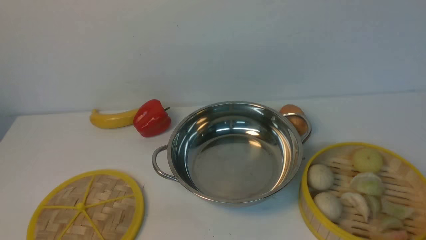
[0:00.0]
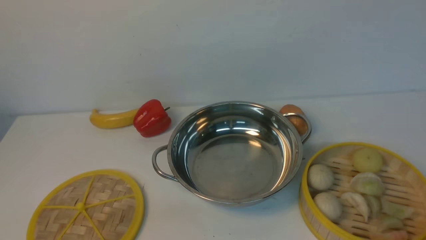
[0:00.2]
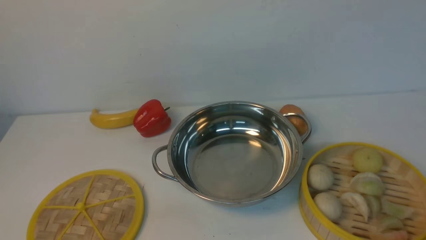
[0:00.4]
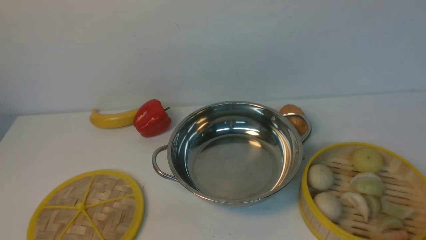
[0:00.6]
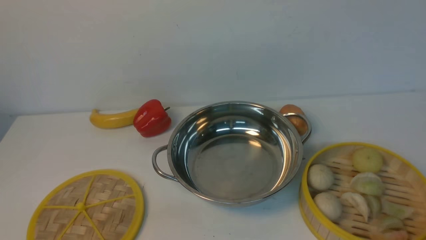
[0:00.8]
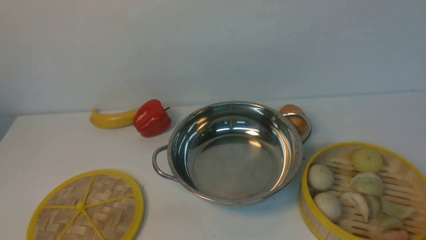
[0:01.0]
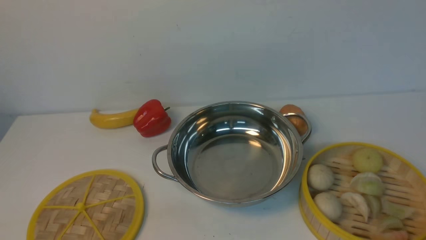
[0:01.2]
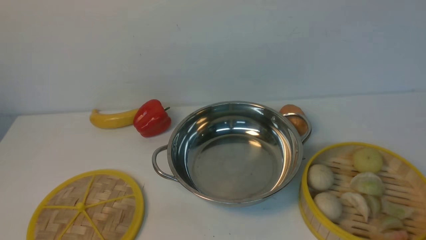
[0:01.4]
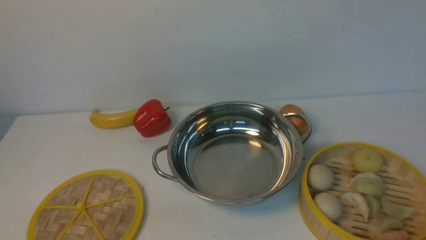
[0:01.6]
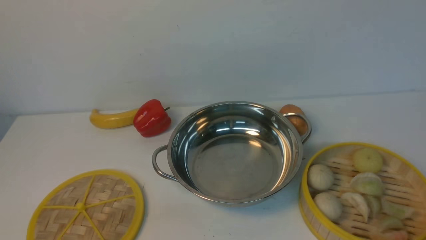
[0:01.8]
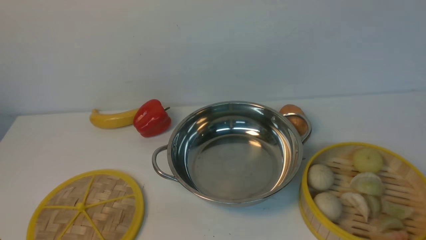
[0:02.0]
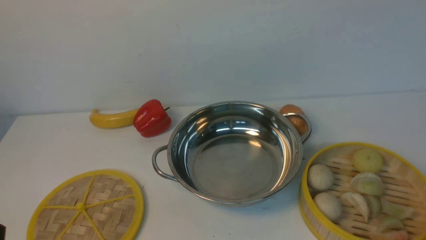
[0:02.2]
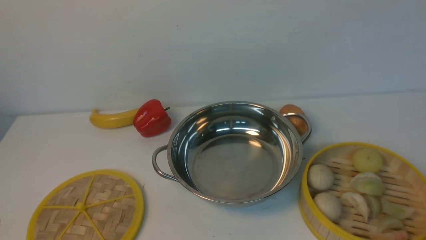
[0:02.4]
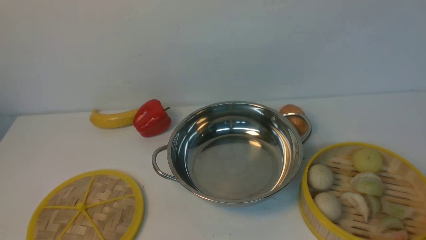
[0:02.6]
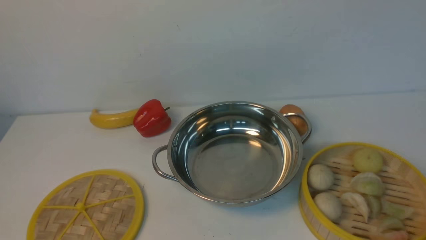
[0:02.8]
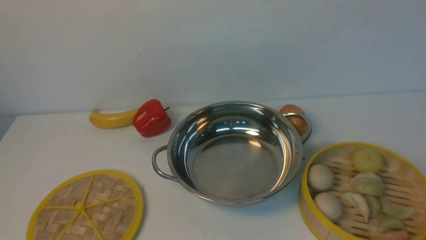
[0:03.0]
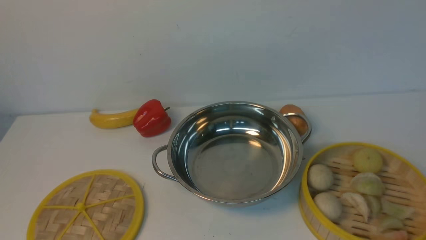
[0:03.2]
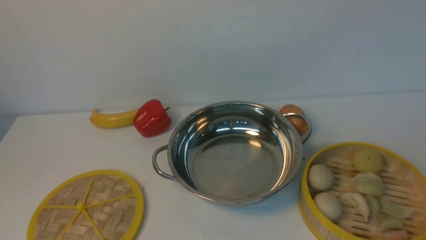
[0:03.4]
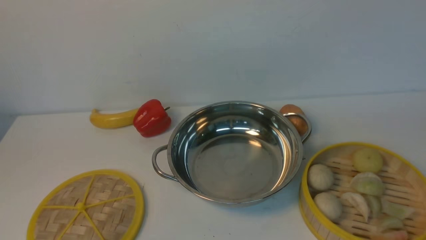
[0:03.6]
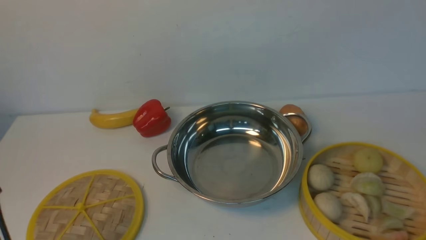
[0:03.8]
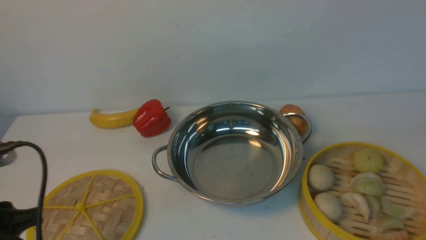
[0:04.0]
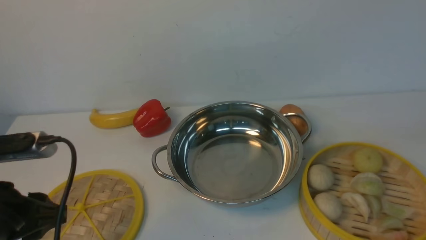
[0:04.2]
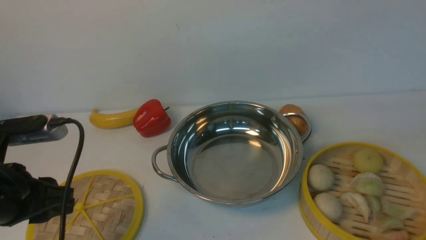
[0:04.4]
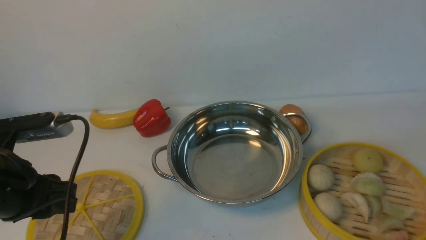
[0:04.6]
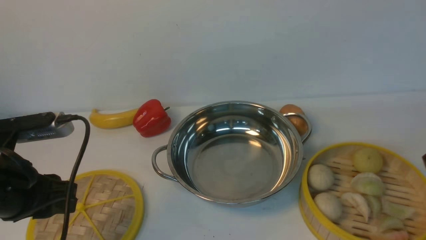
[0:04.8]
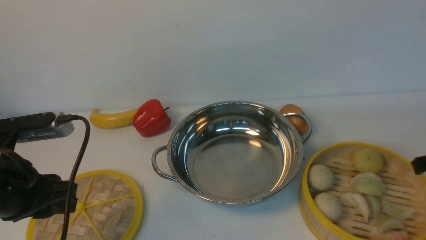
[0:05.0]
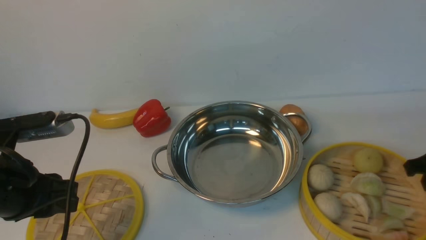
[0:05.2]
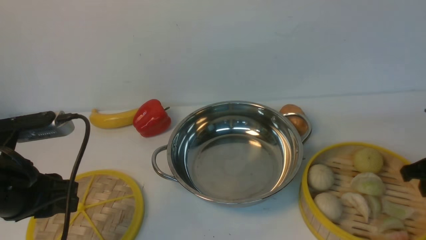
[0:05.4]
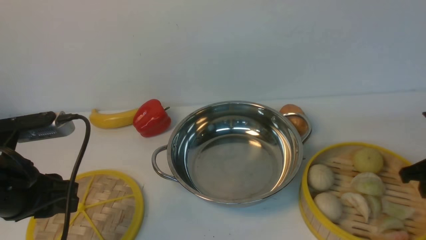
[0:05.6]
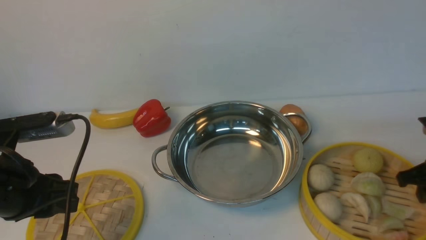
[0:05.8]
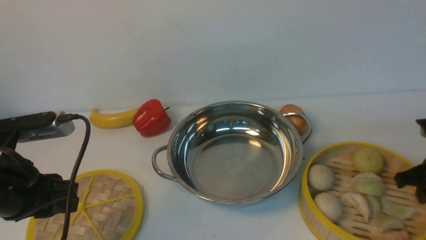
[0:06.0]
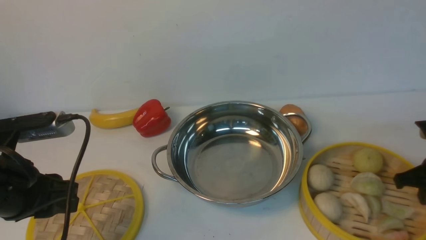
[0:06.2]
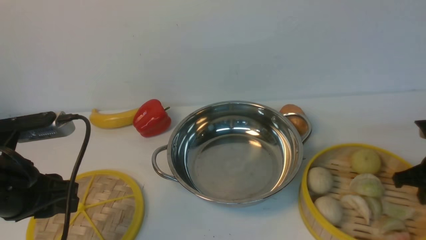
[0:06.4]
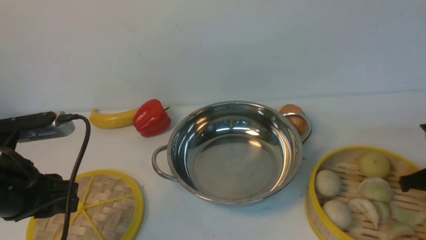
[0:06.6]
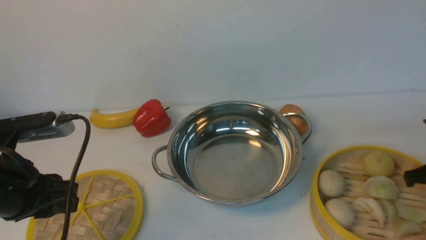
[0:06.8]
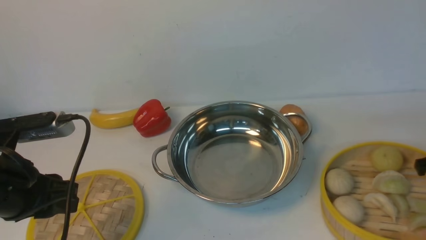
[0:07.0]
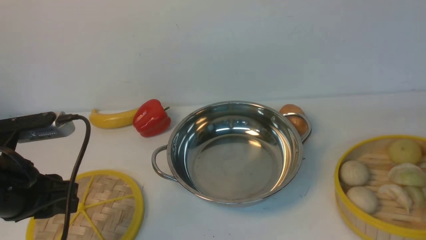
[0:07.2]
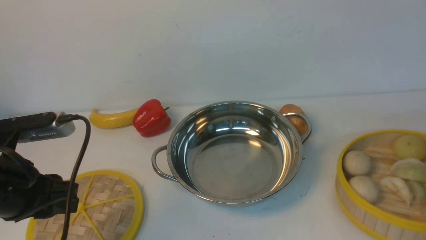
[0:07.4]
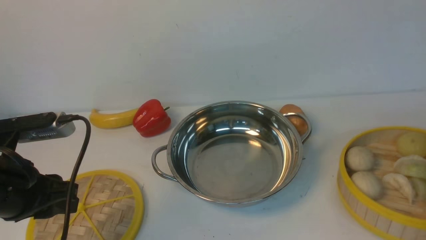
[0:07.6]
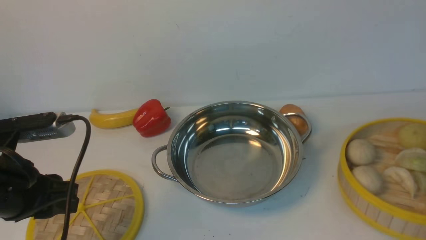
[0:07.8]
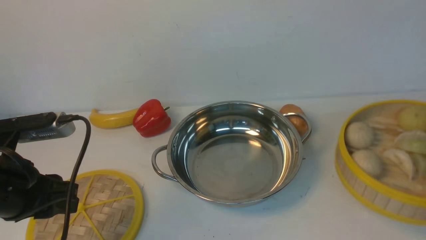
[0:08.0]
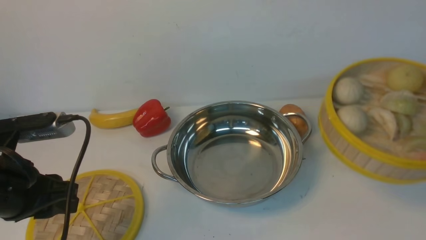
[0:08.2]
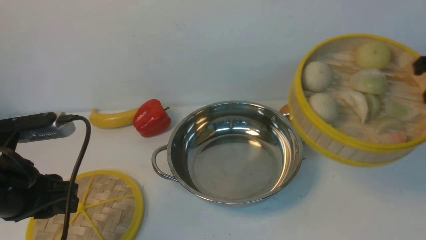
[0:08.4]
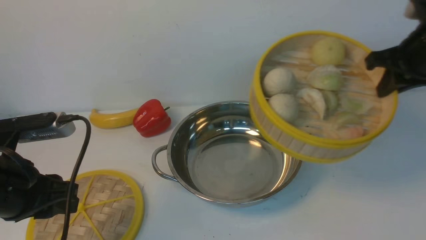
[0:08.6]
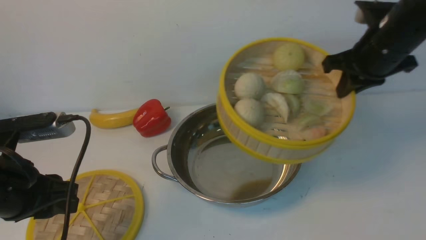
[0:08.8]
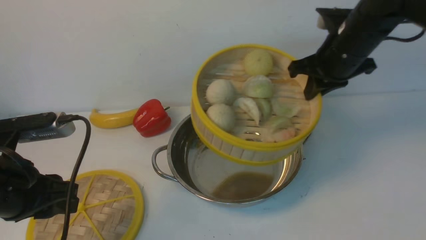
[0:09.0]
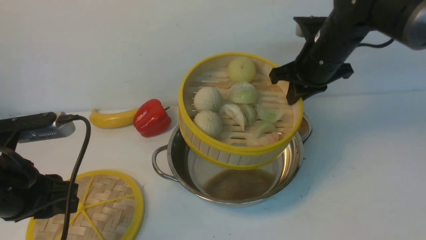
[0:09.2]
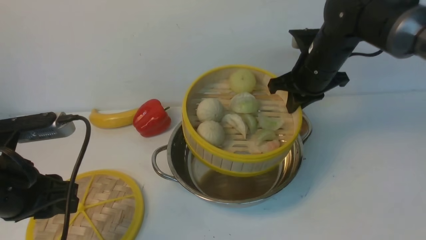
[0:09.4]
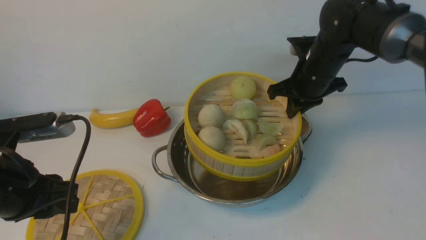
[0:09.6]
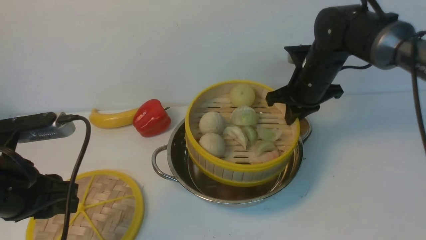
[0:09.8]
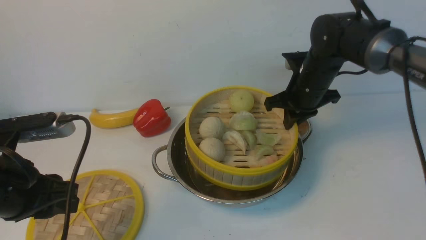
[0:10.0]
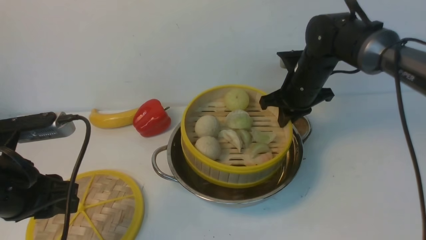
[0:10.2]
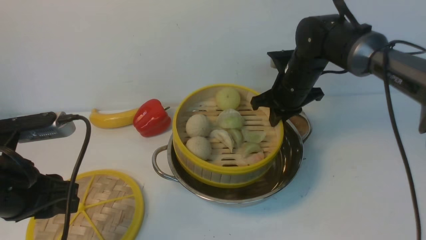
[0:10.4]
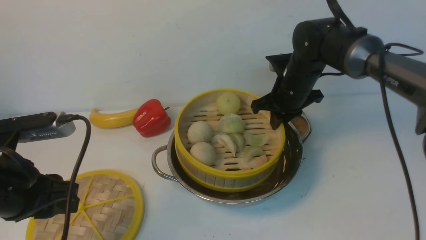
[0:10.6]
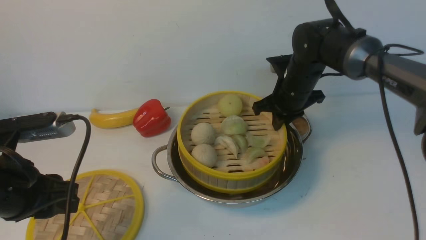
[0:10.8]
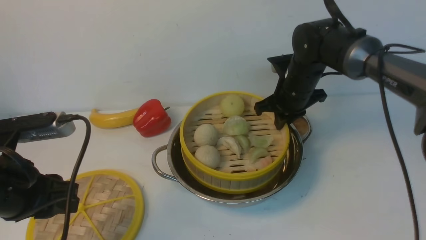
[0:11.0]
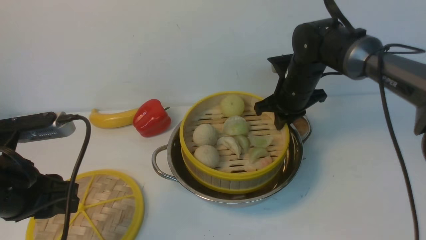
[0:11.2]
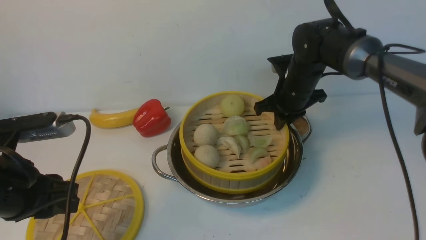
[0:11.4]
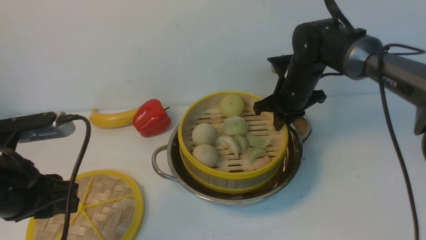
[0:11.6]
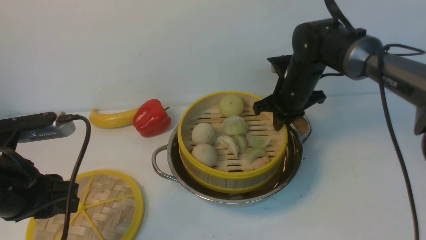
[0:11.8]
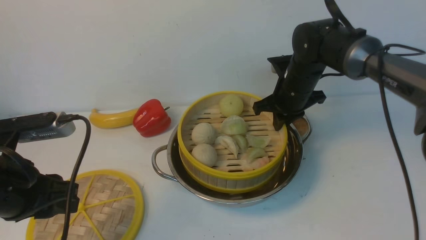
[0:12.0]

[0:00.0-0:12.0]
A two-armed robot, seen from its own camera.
Task of the whole recording: place the steamer in the pot on the white table, and put the lid on the steamer.
Step, 0:00.0 to 0:08.0: use the right arm to lift the steamer closest to it.
0:00.0 to 0:01.6: Both grippers stay put.
0:03.0 to 0:04.4: The left gripper is displaced forward by some 15 cm.
0:04.4 to 0:06.0: The right gripper moves downward and forward, some 15 cm.
0:06.0 to 0:07.6: The right gripper heads to the right and upward, covering approximately 10 cm, and closes its fingers.
0:07.6 to 0:09.0: The right gripper goes roughly 25 cm to the left and forward.
0:09.0 to 0:10.4: The right gripper shifts approximately 10 cm downward and to the left.
0:10.4 to 0:12.0: Neither gripper changes place.

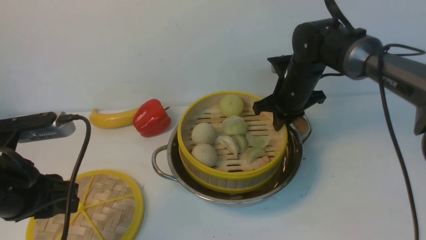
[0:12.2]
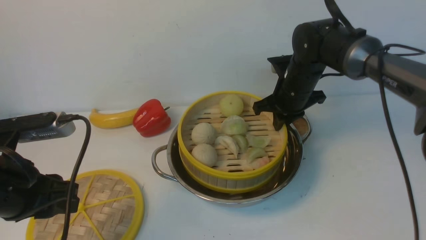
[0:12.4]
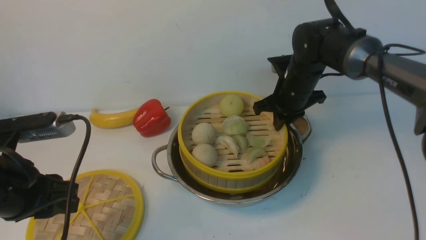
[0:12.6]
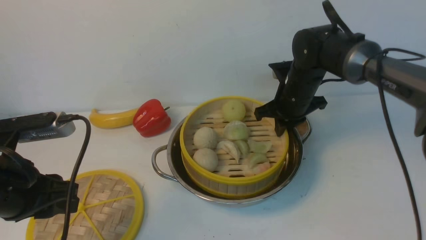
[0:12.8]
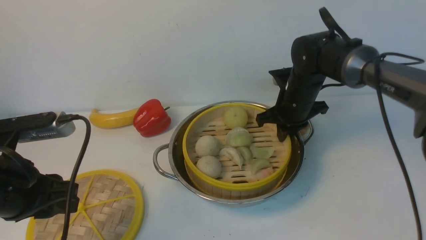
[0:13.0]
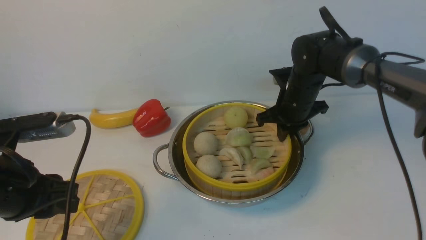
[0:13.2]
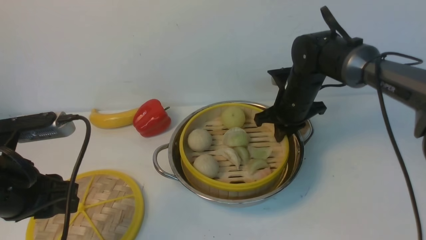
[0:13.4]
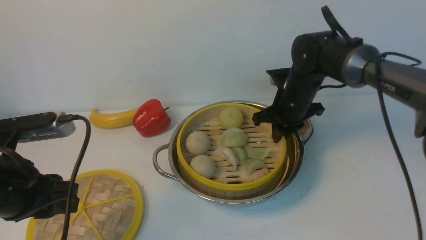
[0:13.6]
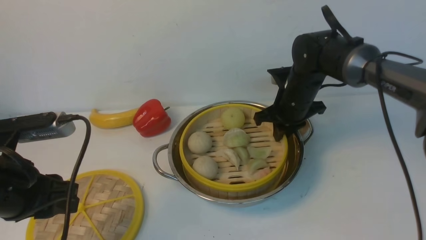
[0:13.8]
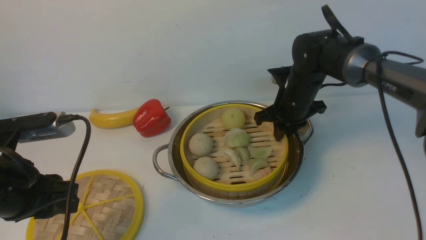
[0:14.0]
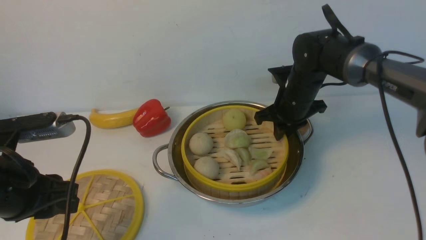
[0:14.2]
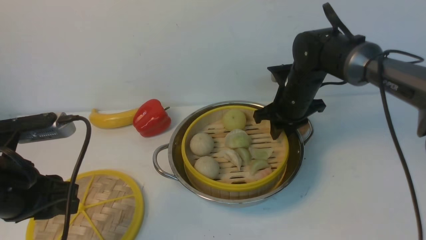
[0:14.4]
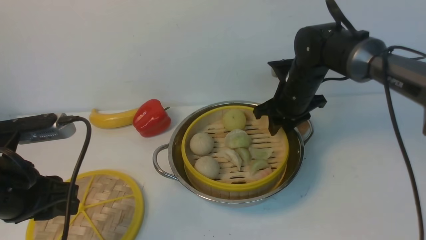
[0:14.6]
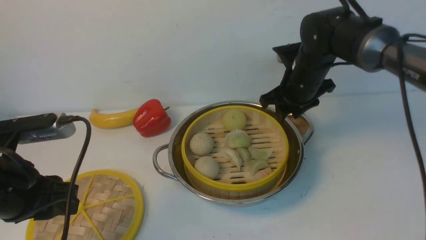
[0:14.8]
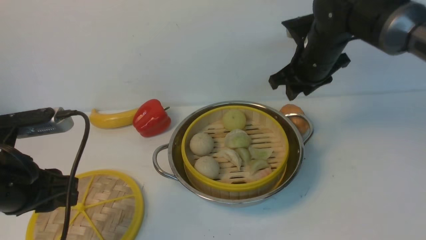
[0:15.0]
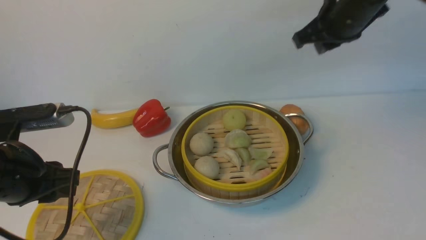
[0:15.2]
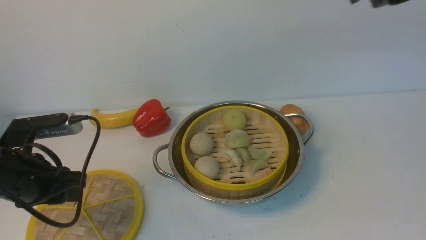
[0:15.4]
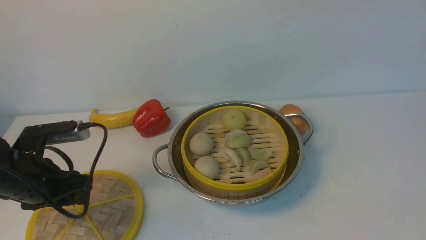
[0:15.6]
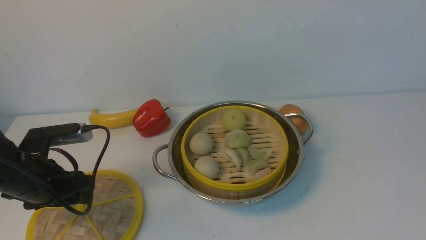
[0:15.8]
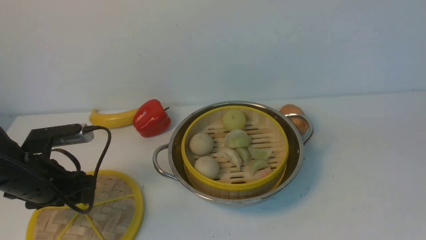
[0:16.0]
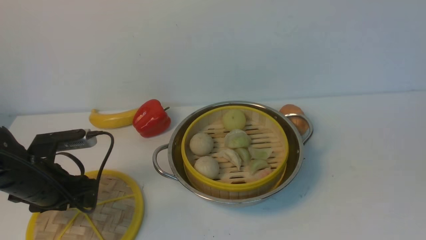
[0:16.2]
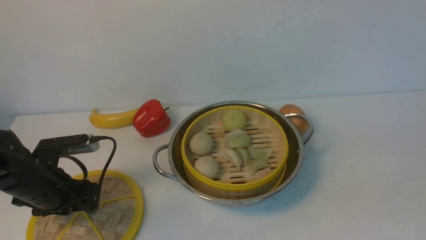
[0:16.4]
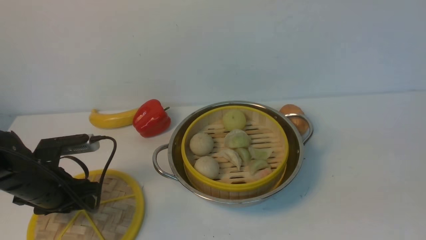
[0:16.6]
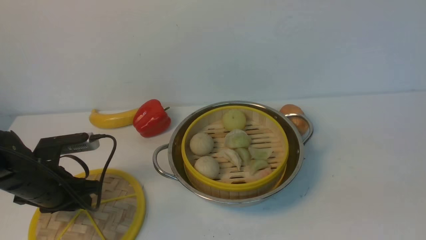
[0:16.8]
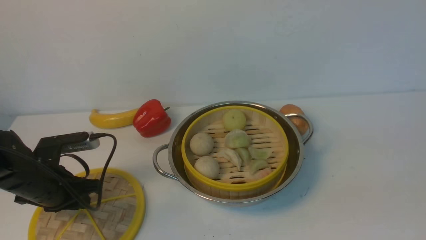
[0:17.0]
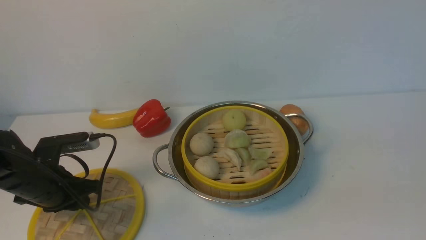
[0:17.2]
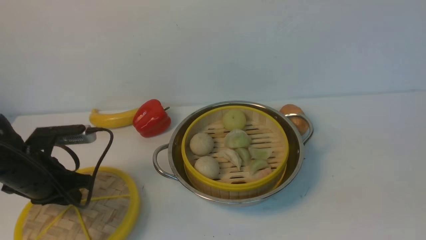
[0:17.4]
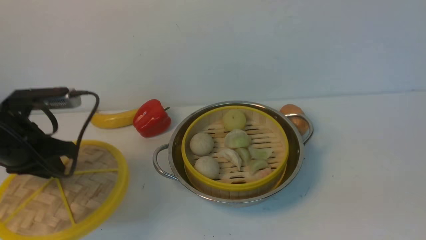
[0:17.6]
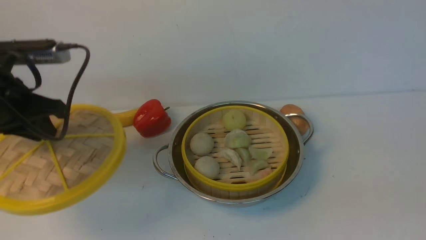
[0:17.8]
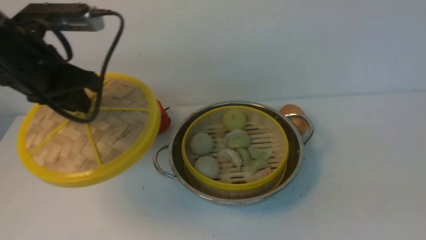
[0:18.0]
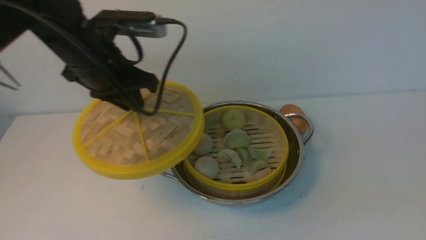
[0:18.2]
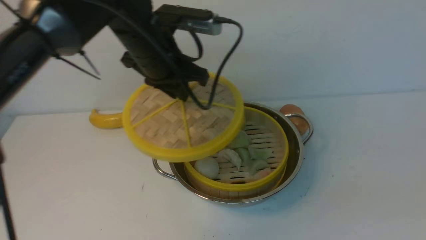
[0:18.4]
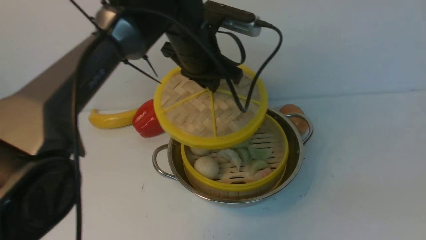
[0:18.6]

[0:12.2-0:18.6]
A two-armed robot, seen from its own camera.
Task of the whole recording: place the steamer in the pot on the white table, and put the lid on the steamer.
Step, 0:15.2 to 0:18.0: use the right arm to lift the lid of the steamer.
0:12.2 to 0:13.8: There are only small adjustments of the grippers.
0:13.8 to 0:15.4: The left gripper changes place by about 5 cm. Meanwhile the right gripper heads upward, backward and to the right, covering about 30 cm, and opens, then closes once more.
0:15.4 to 0:17.0: The left gripper goes about 5 cm downward, and closes its fingers.
0:17.0 to 0:18.6: The left gripper is displaced to the right, upward and forward by some 30 cm.
